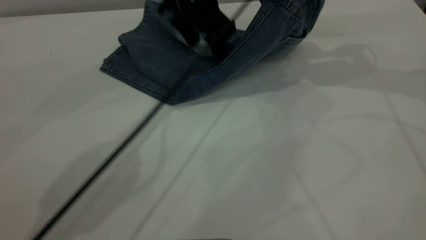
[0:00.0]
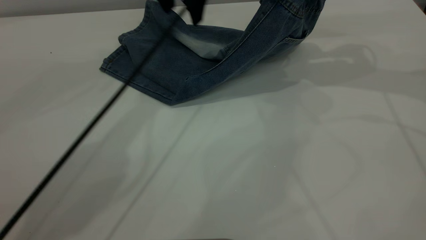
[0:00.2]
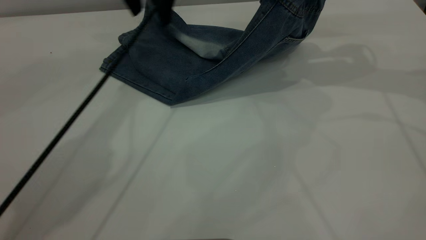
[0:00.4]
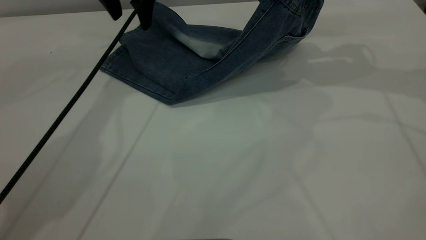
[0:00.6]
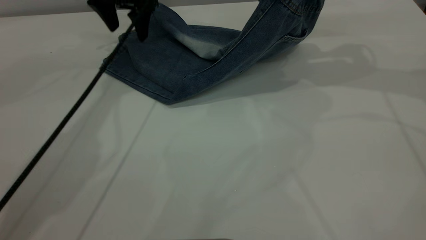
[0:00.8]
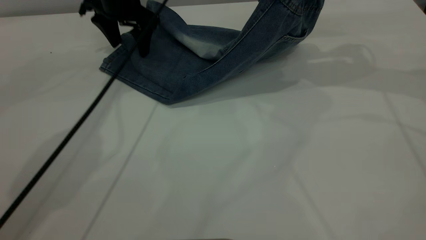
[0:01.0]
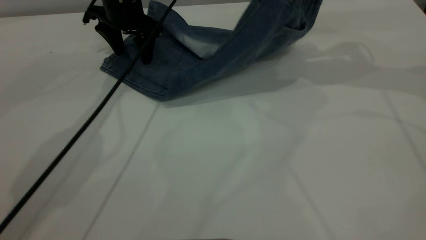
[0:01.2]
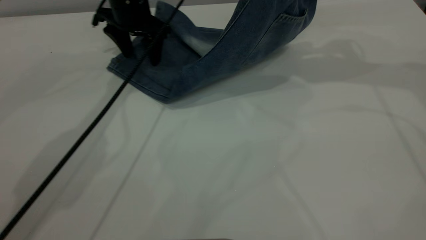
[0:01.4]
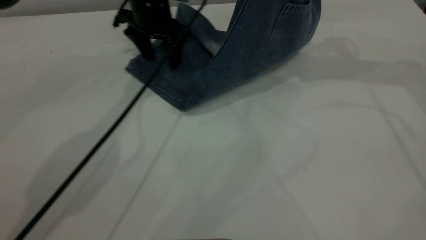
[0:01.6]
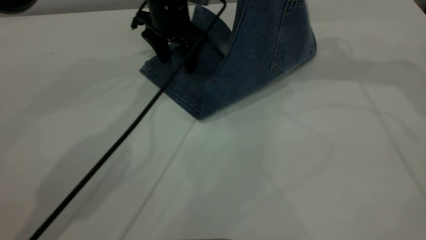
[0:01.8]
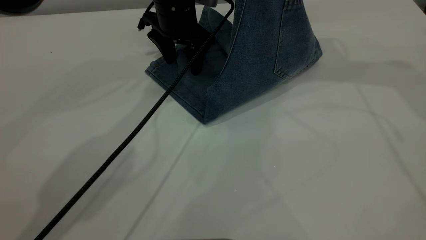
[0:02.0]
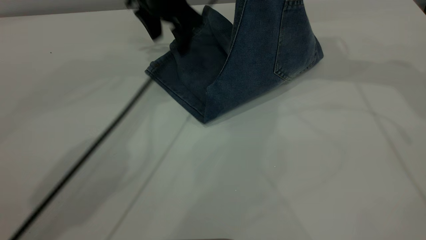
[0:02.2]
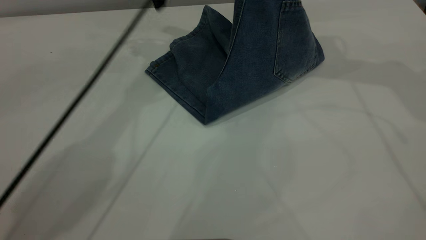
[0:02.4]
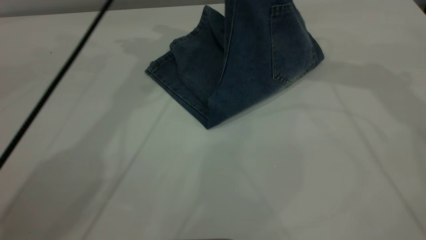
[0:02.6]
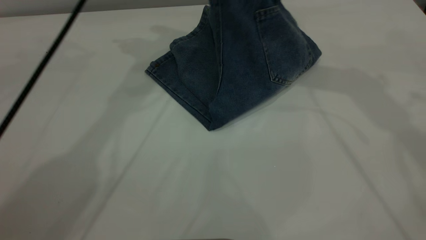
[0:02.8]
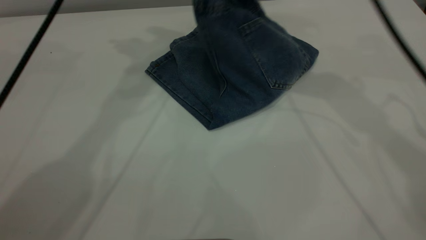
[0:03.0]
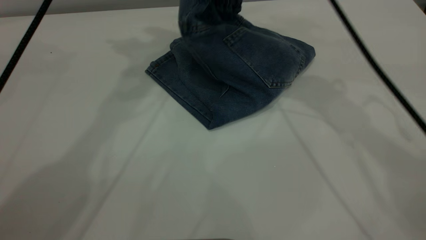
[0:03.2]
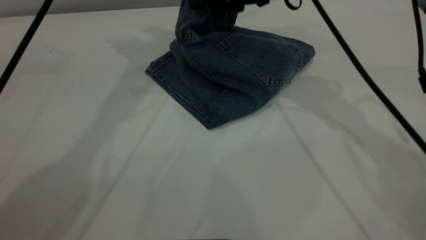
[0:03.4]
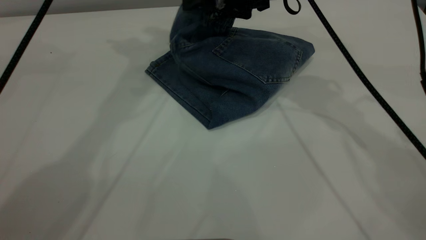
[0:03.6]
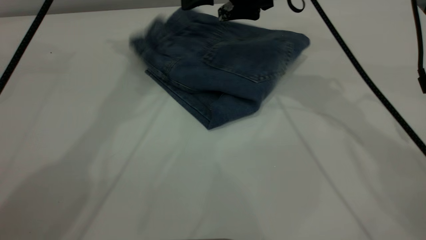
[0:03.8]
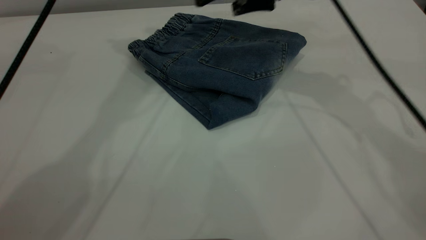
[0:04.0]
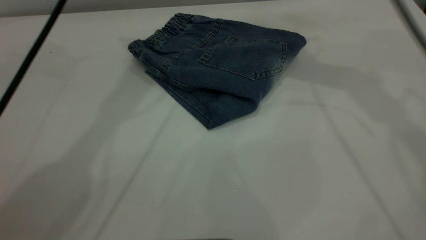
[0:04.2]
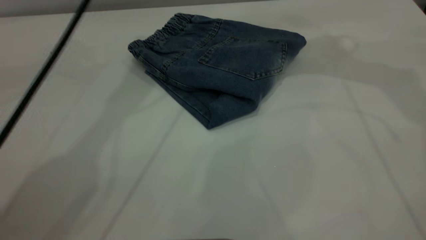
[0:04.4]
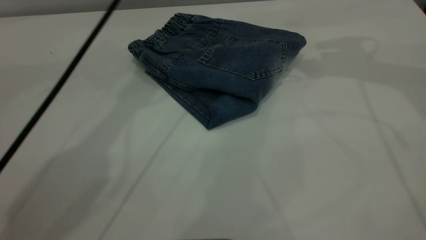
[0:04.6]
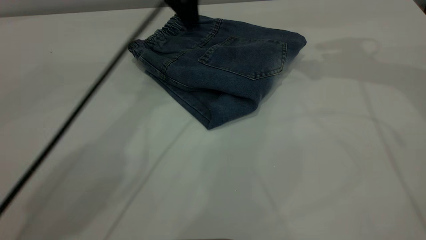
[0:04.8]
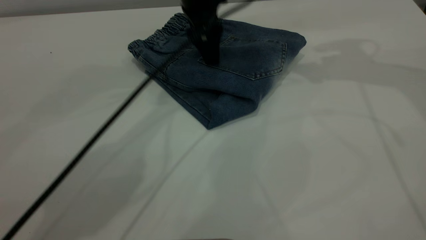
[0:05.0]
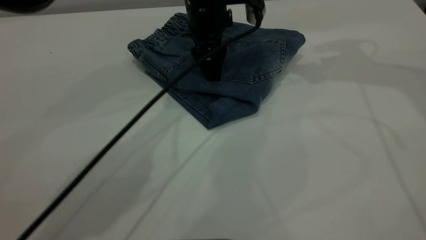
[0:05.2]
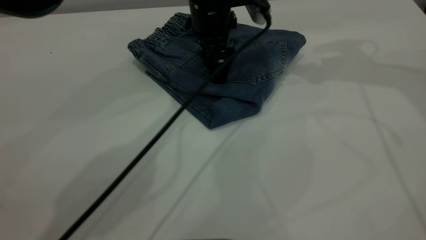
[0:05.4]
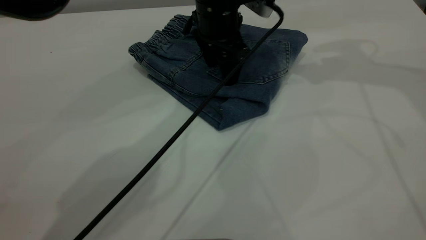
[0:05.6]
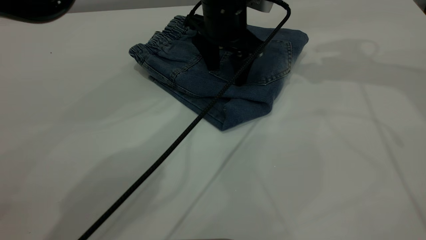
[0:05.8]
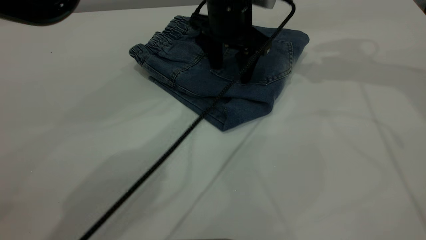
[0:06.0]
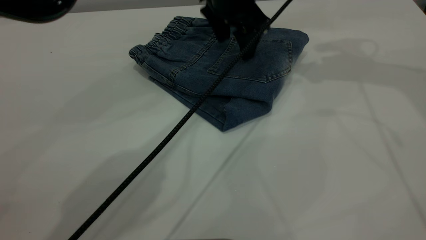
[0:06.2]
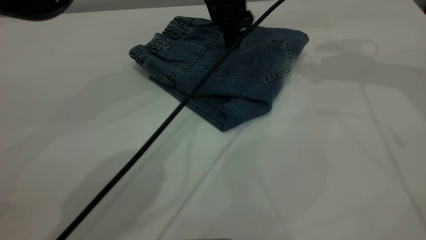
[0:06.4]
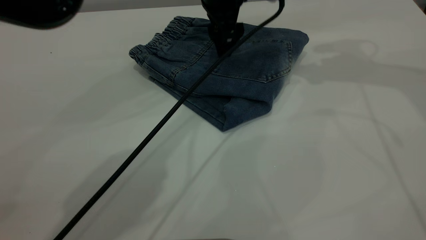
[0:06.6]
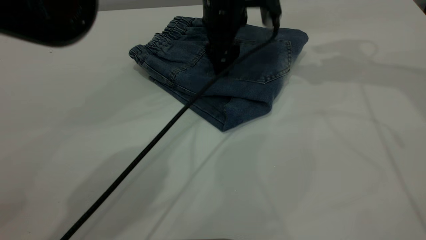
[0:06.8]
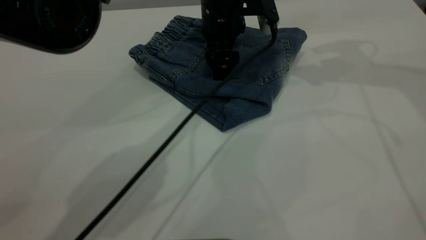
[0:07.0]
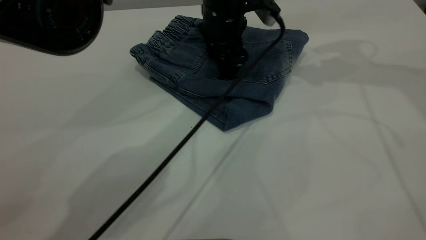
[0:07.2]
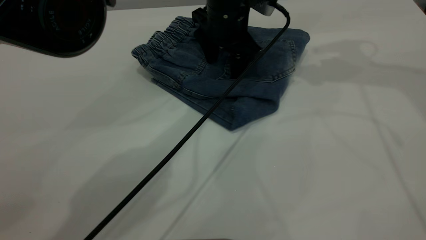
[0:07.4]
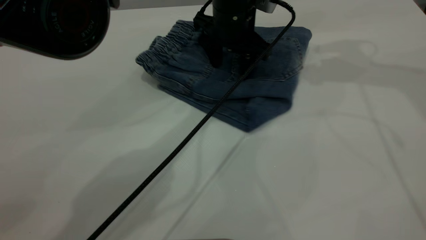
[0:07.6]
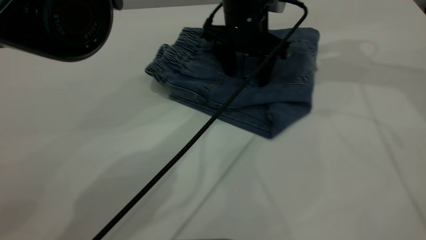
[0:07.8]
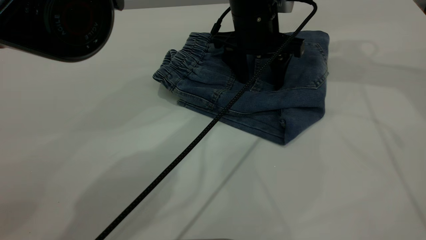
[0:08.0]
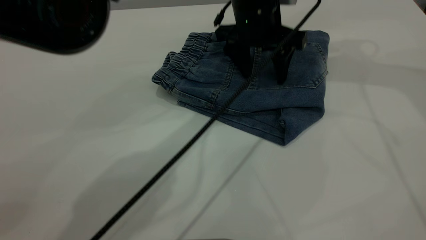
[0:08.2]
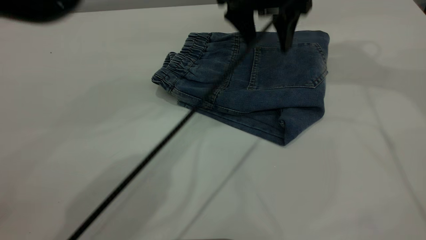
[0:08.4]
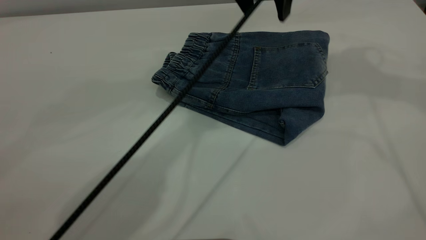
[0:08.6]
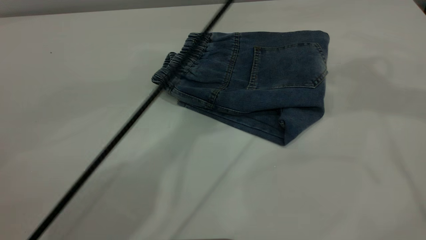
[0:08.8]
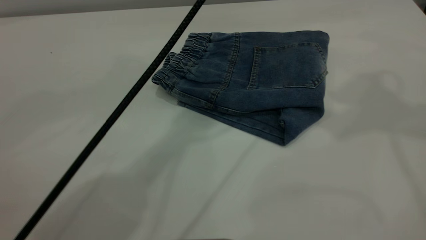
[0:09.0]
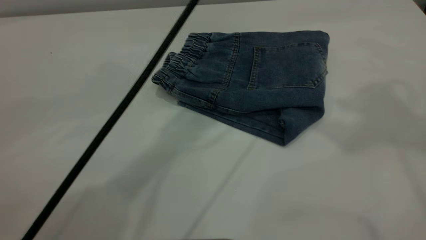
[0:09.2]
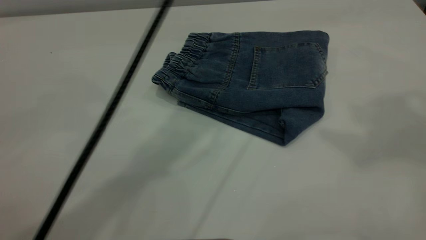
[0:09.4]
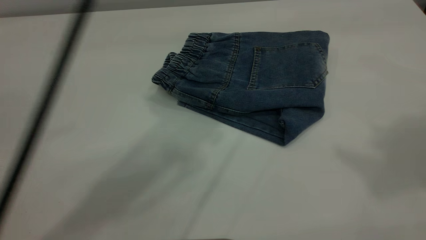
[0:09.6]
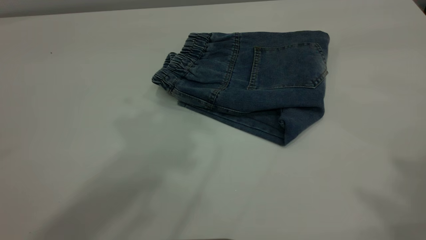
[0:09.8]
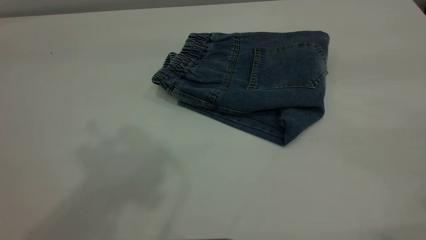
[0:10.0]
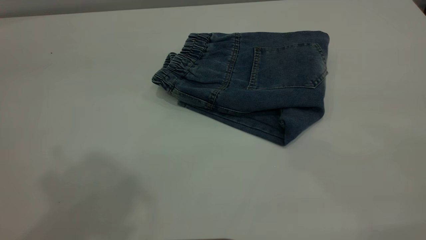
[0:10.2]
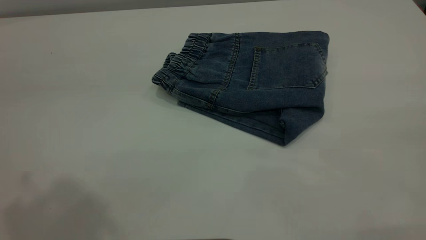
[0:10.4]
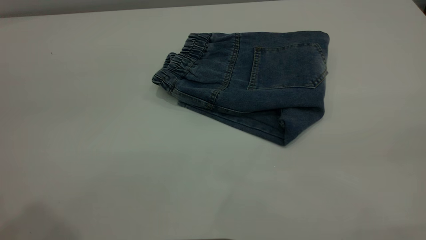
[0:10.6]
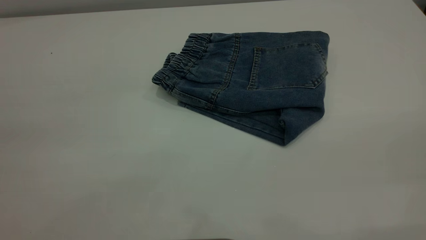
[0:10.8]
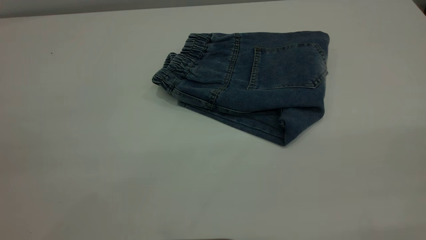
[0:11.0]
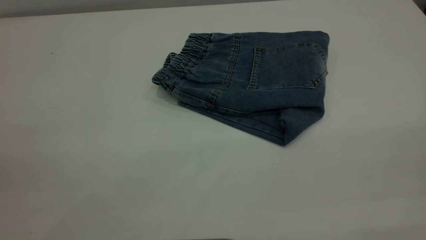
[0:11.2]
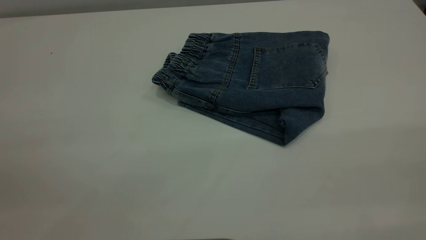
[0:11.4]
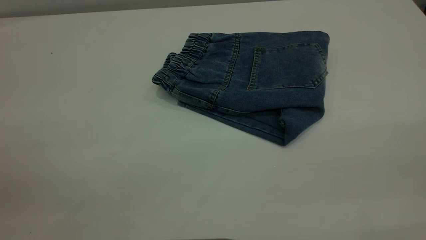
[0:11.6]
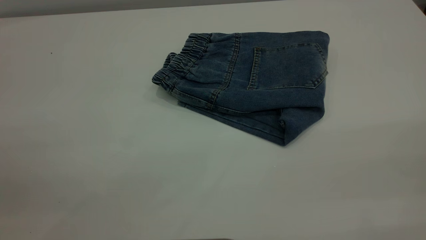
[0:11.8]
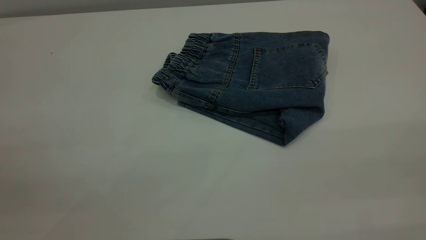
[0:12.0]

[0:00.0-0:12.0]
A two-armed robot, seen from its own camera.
Step, 0:00.0 to 0:04.6: Fold your pants from right to left.
0:00.0 to 0:01.6: The left gripper moves to the left, roughly 5 cm. Meanwhile the right gripper shifts roughly 5 cm upward.
0:01.6 to 0:03.0: The left gripper heads upward, covering approximately 25 cm. Meanwhile the right gripper shifts some 15 cm to the left and downward.
0:03.0 to 0:04.4: The left gripper is displaced downward by approximately 5 cm. The right gripper travels to the right by approximately 10 cm, and opens.
0:04.4 to 0:06.0: The left gripper goes some 20 cm downward and to the right.
0:07.6 to 0:09.0: The left gripper heads upward, covering approximately 20 cm; the right gripper goes roughly 20 cm upward and backward.
0:09.0 to 0:10.4: The left gripper moves backward, to the left and upward, about 40 cm. The right gripper moves backward, approximately 30 cm.

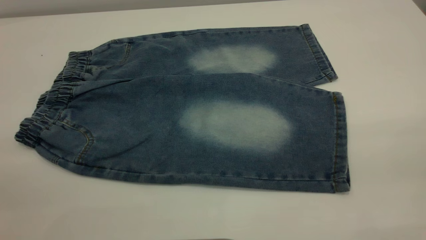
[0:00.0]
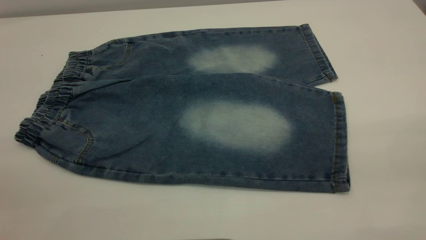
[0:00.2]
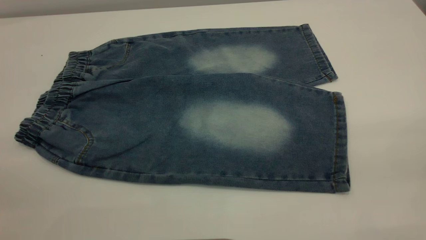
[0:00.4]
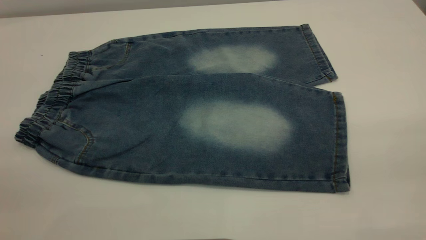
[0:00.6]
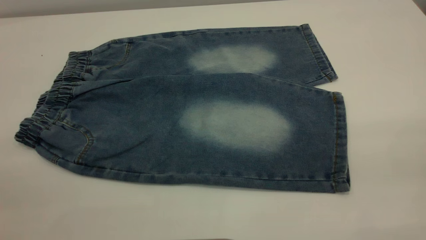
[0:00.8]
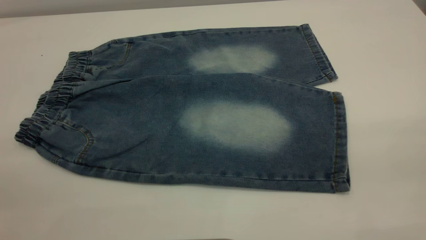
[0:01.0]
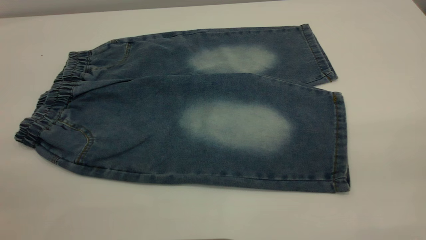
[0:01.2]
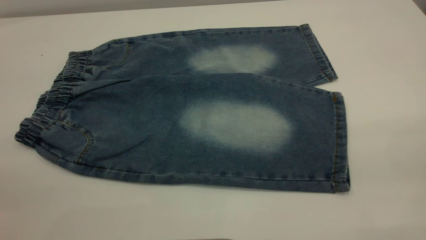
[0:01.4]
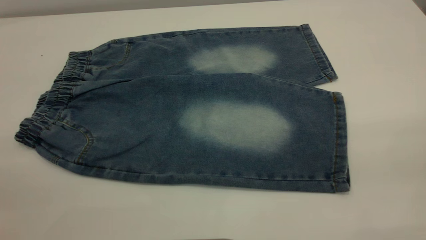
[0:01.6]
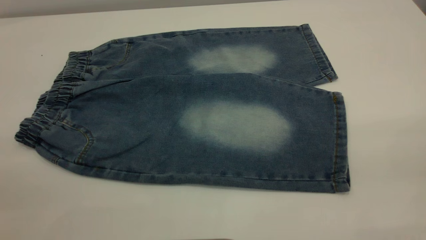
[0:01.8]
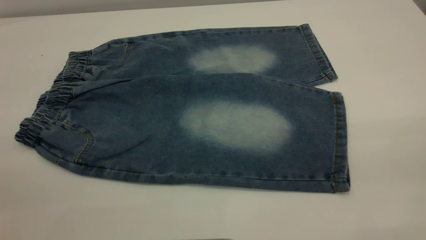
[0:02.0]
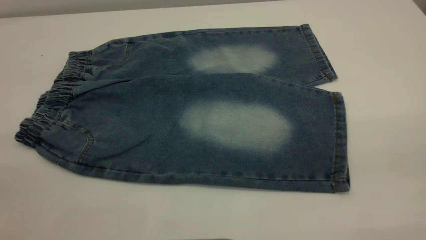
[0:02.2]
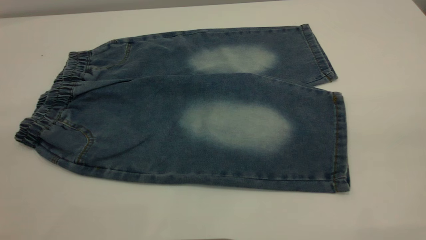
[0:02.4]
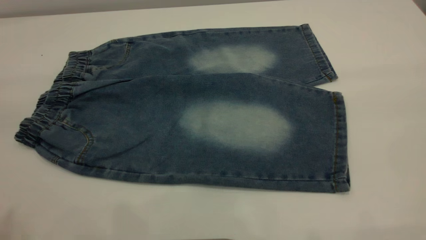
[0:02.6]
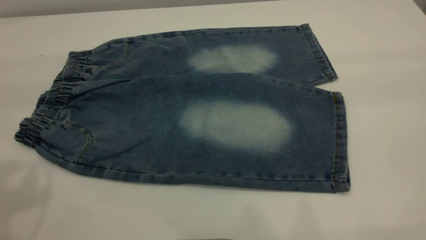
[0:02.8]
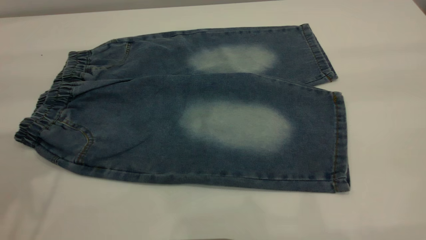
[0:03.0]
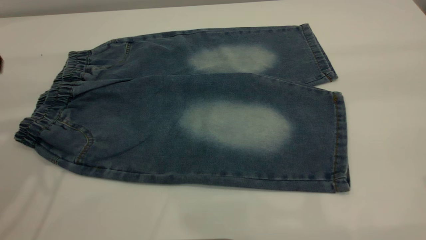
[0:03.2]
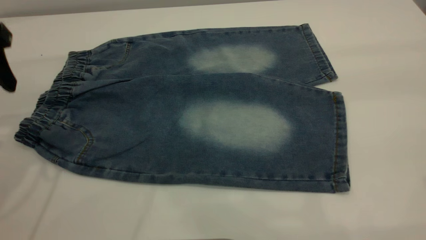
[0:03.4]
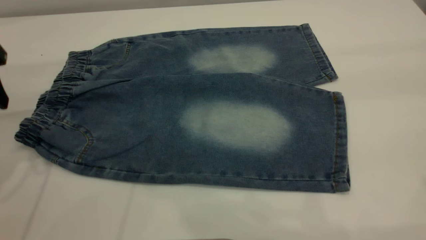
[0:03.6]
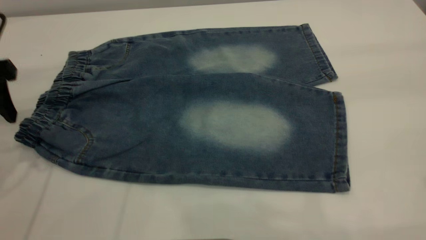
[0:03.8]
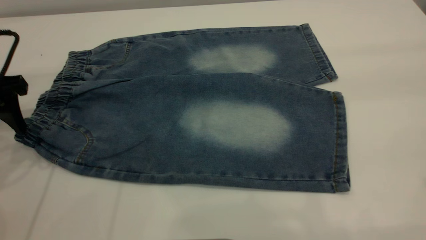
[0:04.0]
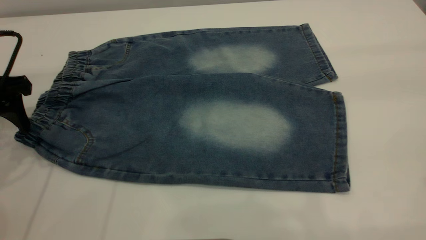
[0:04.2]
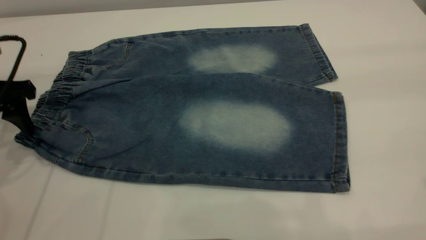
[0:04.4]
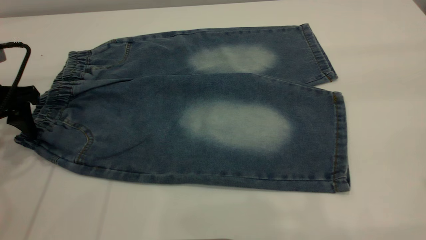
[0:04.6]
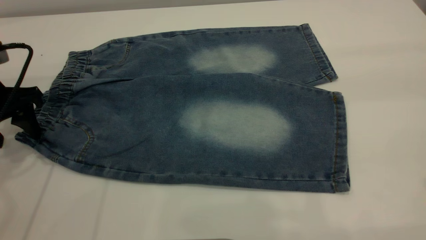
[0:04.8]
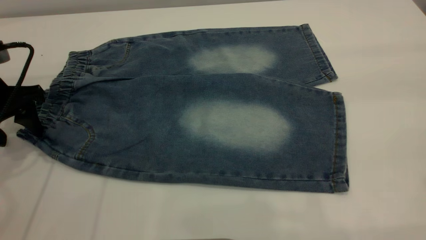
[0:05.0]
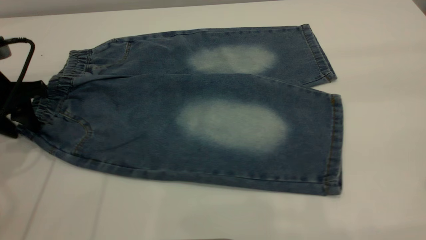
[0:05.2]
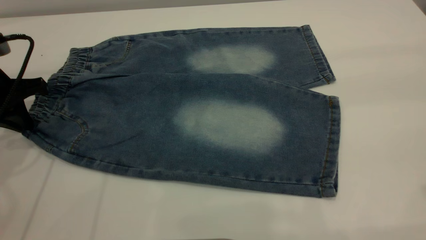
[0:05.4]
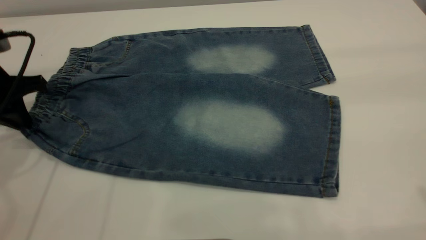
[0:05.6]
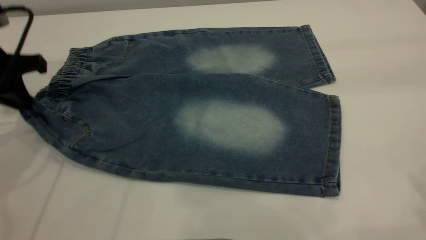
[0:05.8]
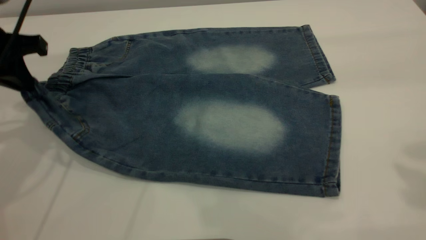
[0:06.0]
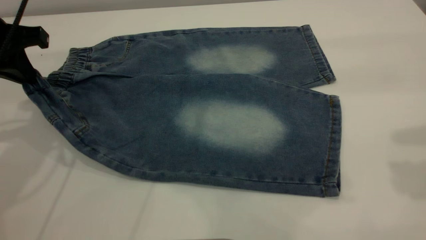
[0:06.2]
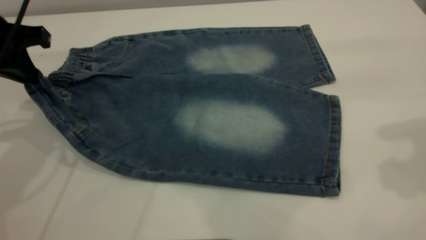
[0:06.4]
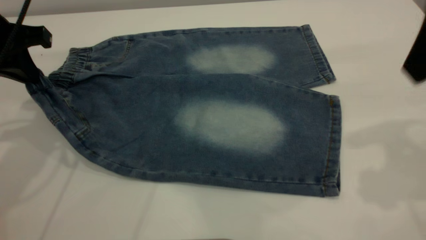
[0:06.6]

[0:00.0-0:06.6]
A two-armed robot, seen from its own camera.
0:00.0 to 0:01.6: Both grippers stay put.
0:03.2 to 0:05.0: The left gripper is displaced downward by some 15 cm.
0:05.0 to 0:06.6: The left gripper moves upward, approximately 10 cm, and closes up. Meanwhile the right gripper moves forward, downward and to the left, about 15 cm.
